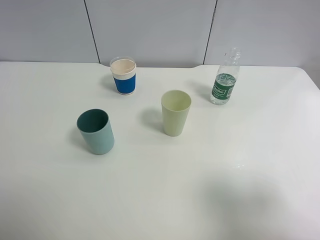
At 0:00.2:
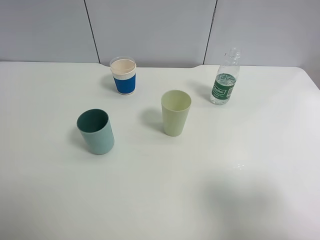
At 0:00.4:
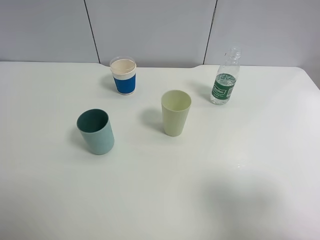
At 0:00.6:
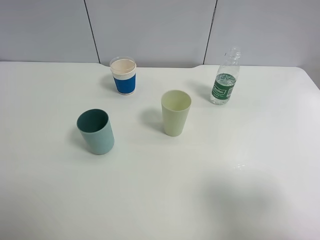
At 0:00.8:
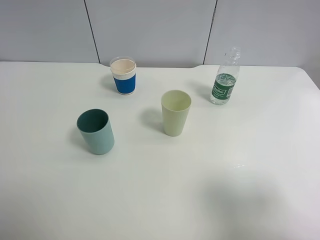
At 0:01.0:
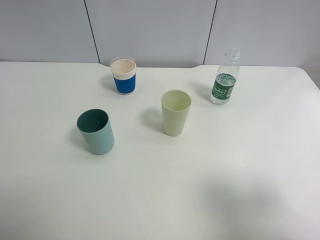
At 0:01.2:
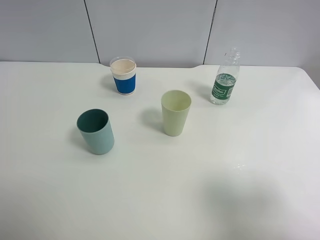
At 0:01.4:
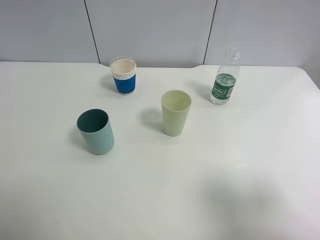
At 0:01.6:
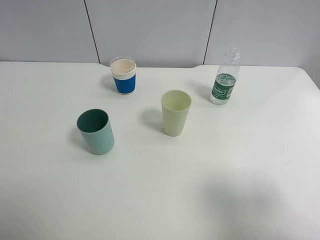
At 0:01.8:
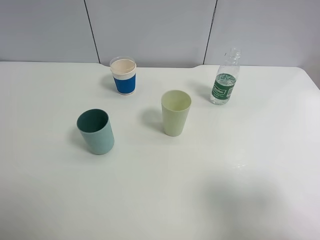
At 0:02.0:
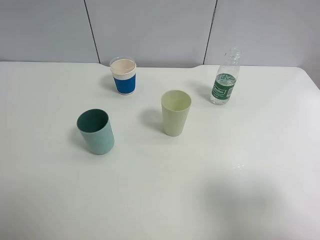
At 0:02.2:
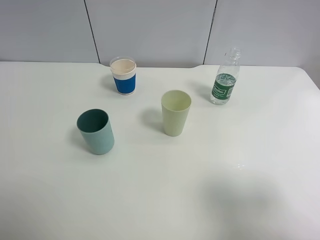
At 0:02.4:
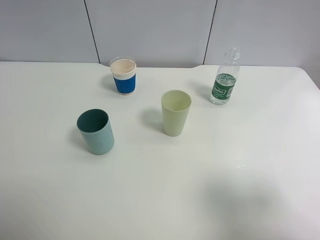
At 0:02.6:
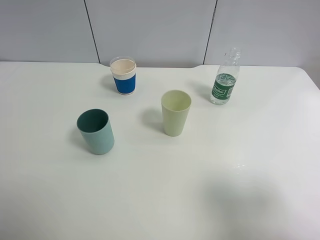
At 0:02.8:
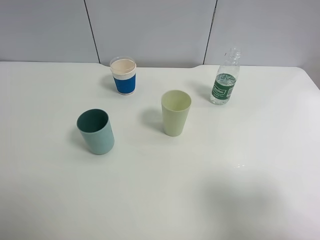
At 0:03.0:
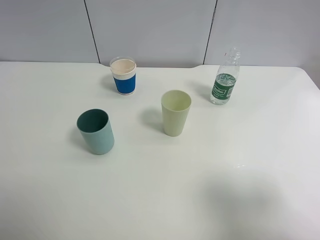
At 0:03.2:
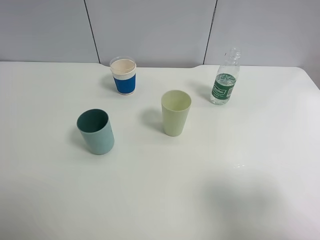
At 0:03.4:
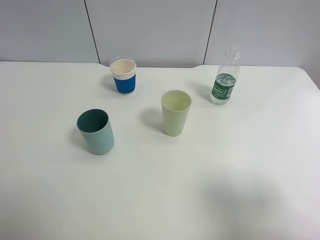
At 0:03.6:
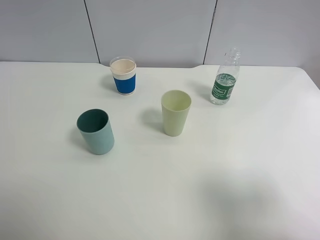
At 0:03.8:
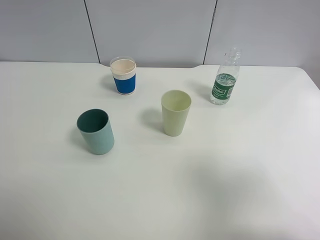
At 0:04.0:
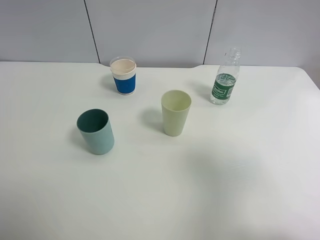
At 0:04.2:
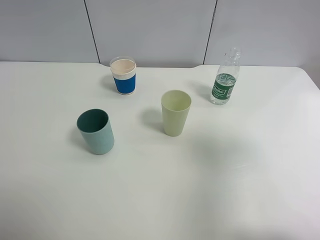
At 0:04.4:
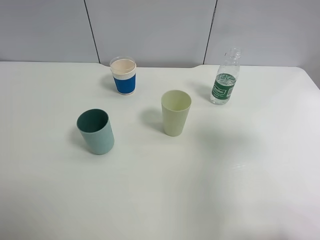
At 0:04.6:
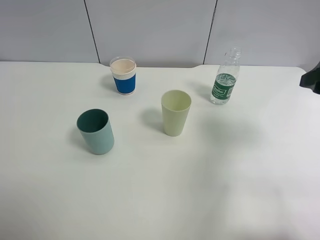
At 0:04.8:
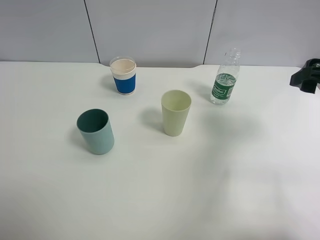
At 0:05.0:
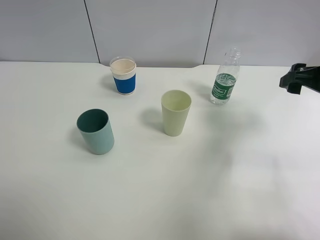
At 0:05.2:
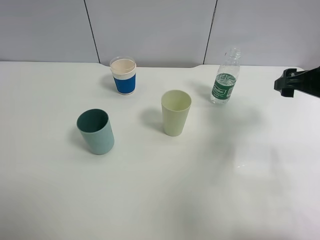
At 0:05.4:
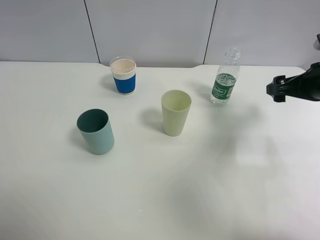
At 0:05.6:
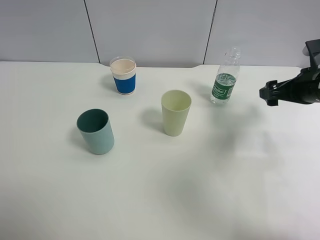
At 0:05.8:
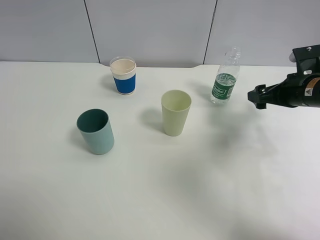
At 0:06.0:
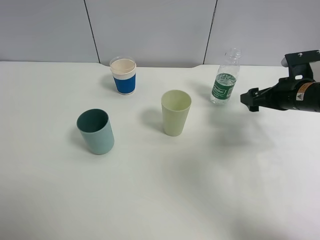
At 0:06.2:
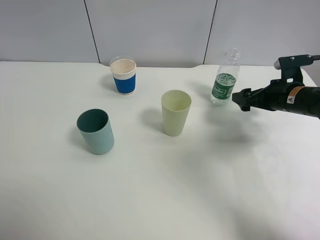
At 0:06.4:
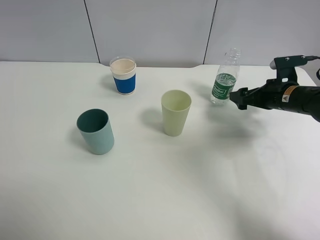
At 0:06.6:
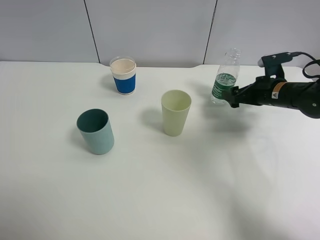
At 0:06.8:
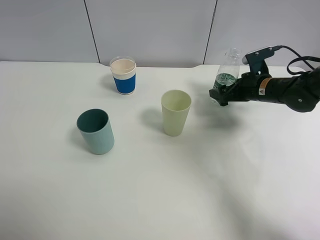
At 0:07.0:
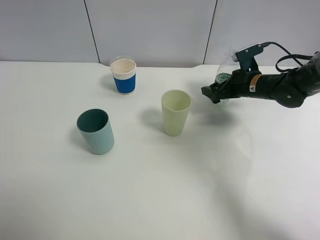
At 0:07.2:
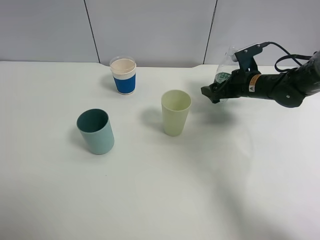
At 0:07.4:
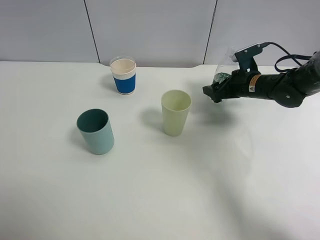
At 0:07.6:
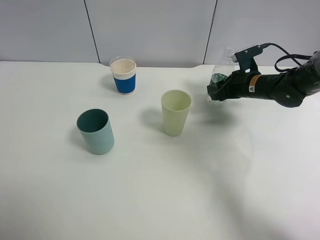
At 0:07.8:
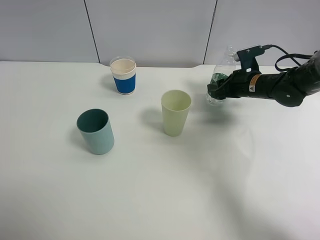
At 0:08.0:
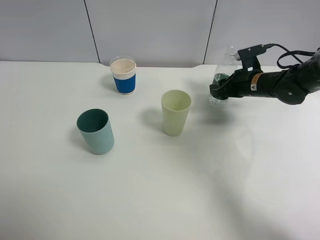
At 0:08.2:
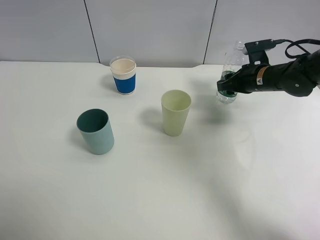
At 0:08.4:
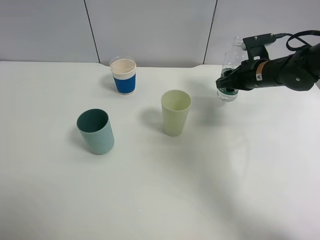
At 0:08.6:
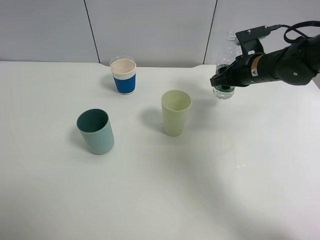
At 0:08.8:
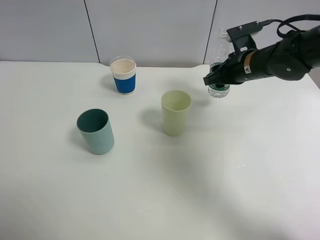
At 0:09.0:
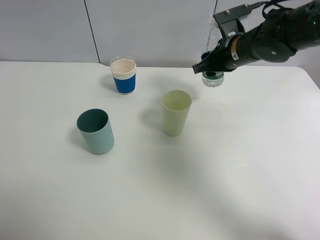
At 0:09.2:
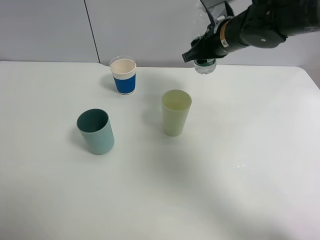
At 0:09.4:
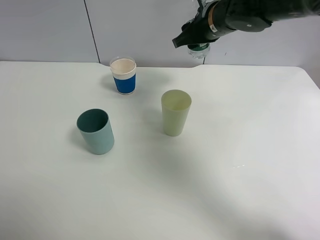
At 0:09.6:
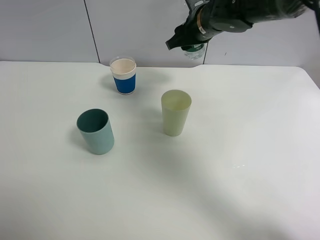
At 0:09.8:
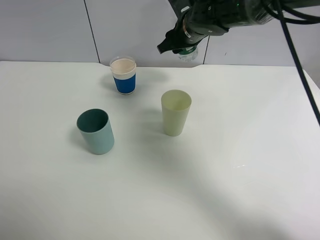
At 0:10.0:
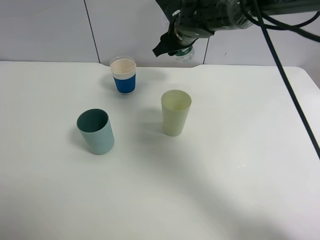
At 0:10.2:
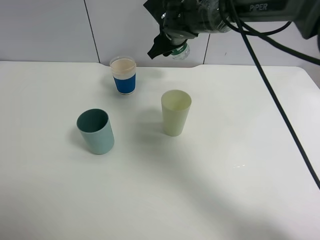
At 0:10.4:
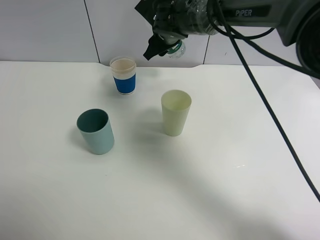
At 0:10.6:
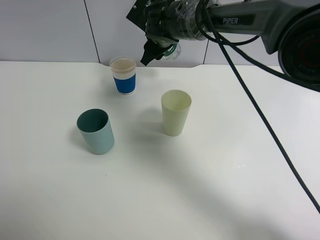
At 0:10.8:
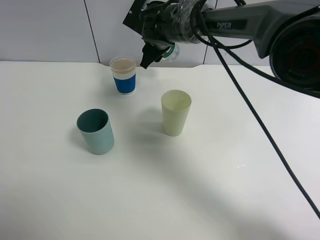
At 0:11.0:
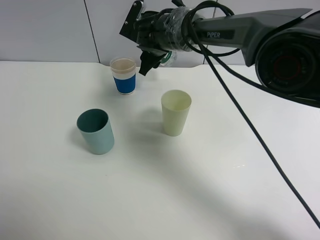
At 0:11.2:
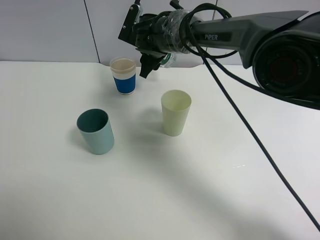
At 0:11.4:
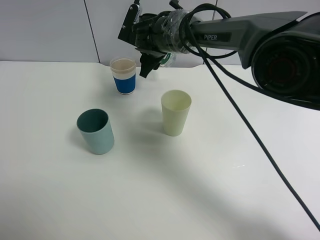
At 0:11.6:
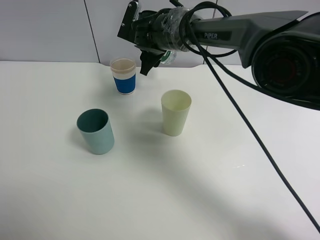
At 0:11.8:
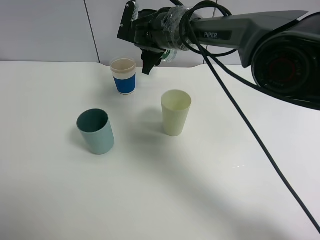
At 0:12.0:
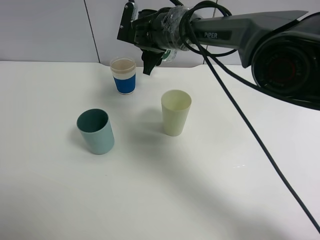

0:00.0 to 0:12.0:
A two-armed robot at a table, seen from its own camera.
Task of the whole recording: use a clamp to hold the bottle of the drink, pour the beverage into a random cup, then clamp the cup containing the drink and pour the drink into another random cup.
Step, 0:00.0 to 0:08.2: Pick up the water bottle with right gripper.
0:00.0 to 0:03.0: Both grippers stay about where they are.
0:03.0 to 0:04.4: The right gripper is displaced forward by some 15 cm.
0:04.4 to 0:06.0: The right gripper moves downward and forward, some 20 cm.
0:06.0 to 0:07.6: The right gripper is displaced forward and to the left by about 10 cm, and closes up.
0:07.6 to 0:09.0: The right gripper travels upward and to the left by approximately 15 cm.
0:09.0 to 0:10.4: The right gripper shifts roughly 15 cm to the left and forward.

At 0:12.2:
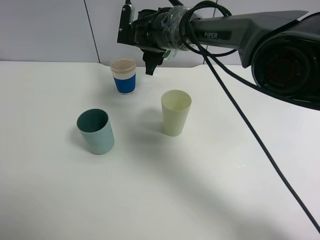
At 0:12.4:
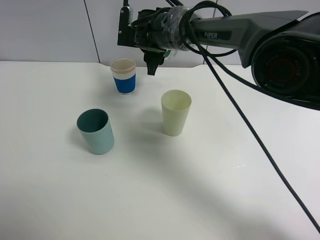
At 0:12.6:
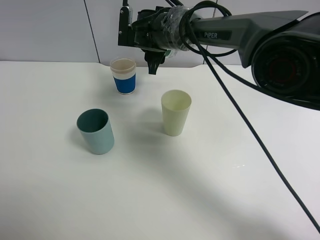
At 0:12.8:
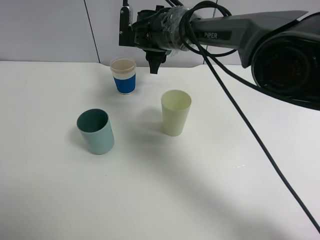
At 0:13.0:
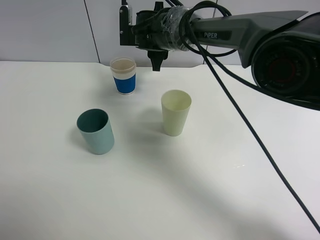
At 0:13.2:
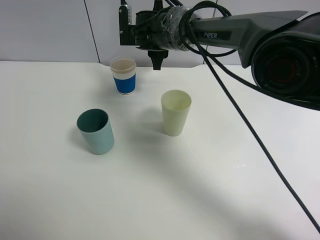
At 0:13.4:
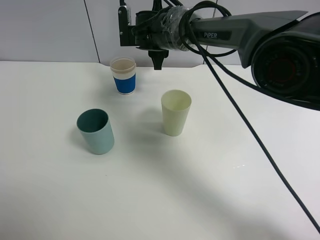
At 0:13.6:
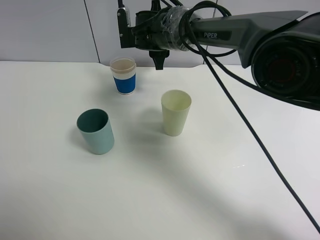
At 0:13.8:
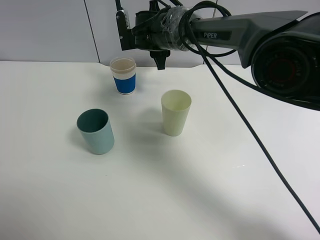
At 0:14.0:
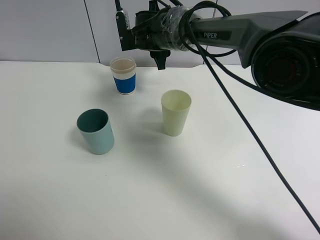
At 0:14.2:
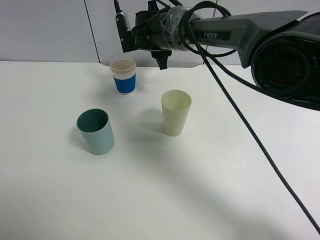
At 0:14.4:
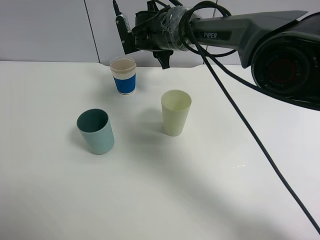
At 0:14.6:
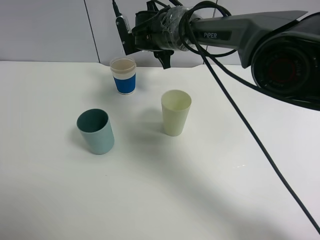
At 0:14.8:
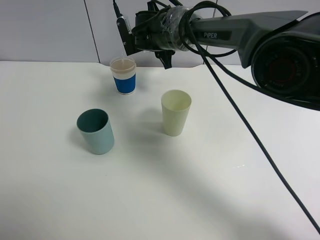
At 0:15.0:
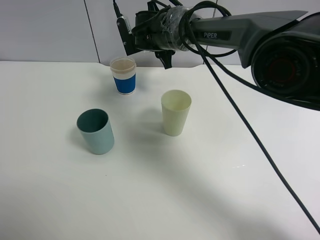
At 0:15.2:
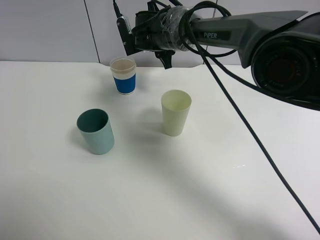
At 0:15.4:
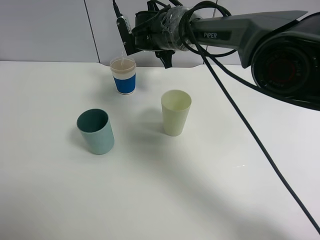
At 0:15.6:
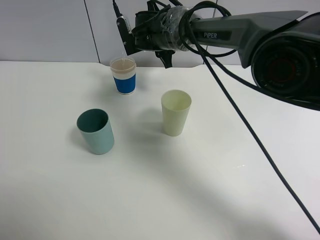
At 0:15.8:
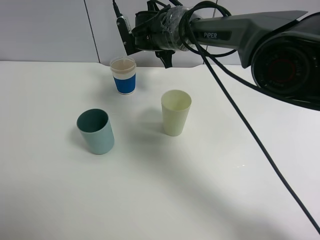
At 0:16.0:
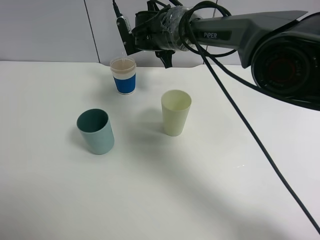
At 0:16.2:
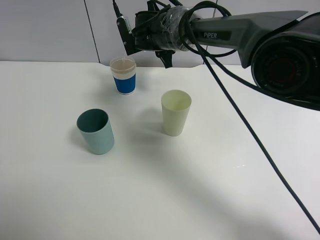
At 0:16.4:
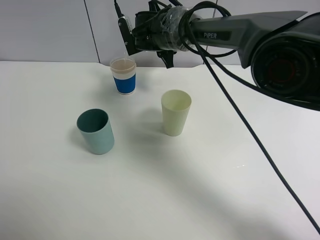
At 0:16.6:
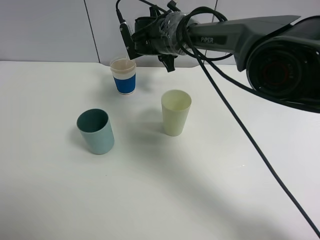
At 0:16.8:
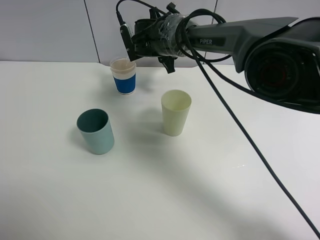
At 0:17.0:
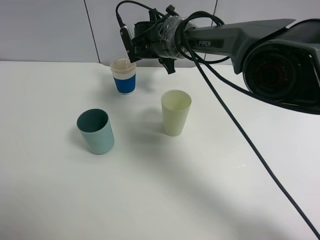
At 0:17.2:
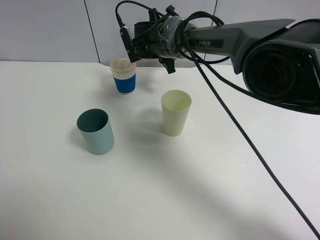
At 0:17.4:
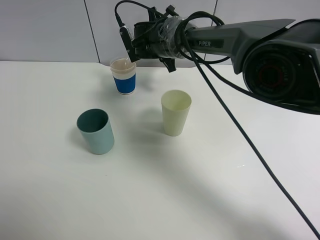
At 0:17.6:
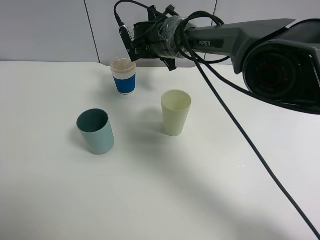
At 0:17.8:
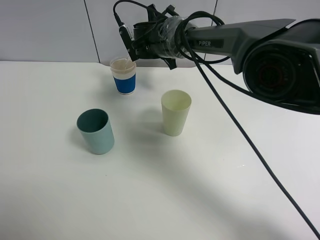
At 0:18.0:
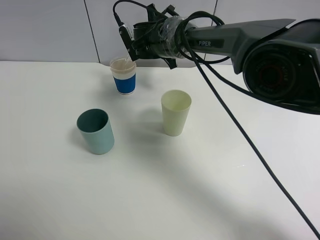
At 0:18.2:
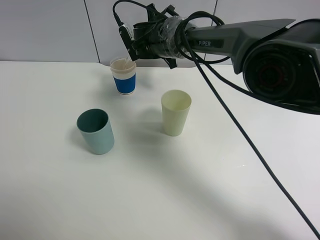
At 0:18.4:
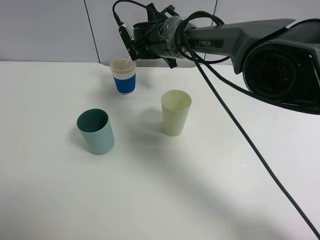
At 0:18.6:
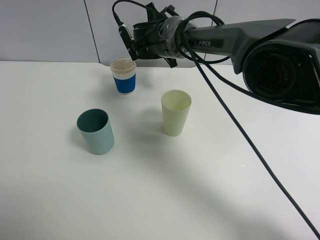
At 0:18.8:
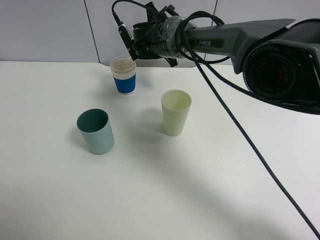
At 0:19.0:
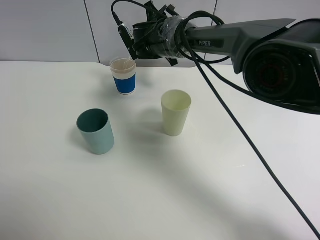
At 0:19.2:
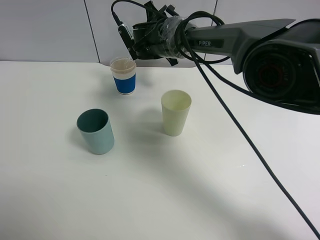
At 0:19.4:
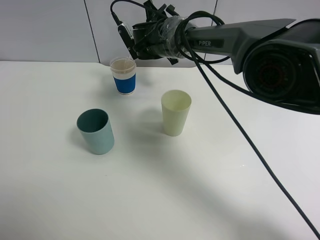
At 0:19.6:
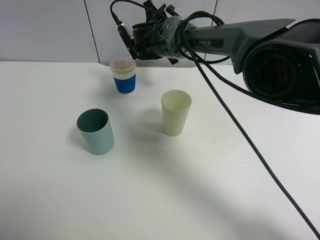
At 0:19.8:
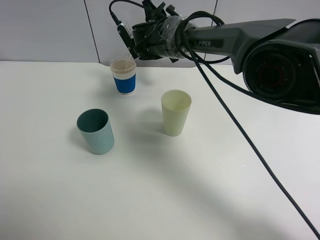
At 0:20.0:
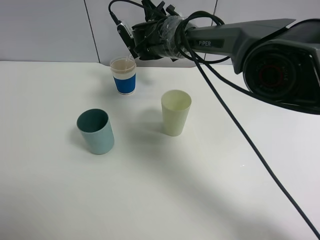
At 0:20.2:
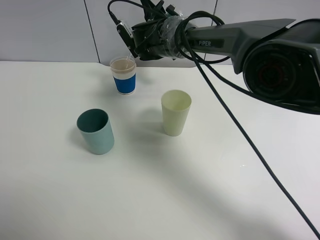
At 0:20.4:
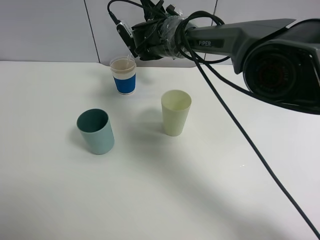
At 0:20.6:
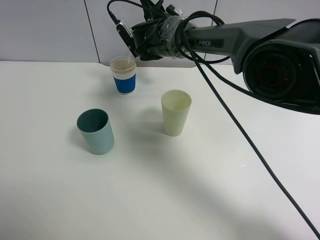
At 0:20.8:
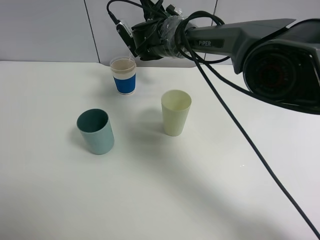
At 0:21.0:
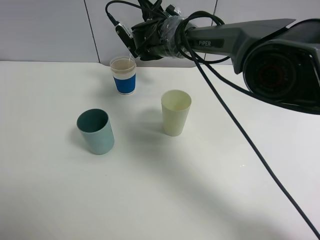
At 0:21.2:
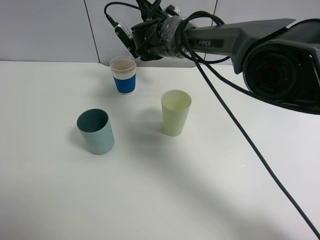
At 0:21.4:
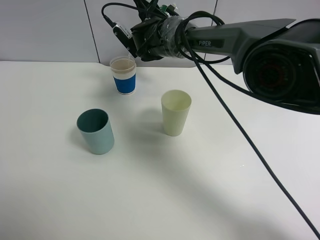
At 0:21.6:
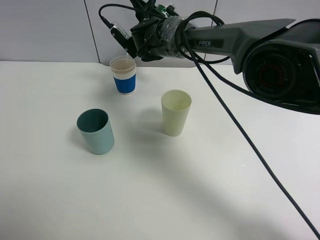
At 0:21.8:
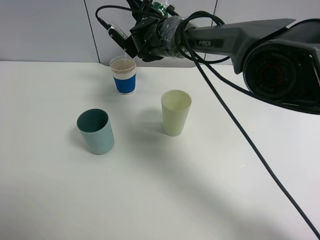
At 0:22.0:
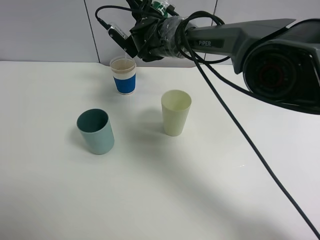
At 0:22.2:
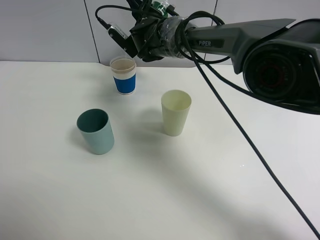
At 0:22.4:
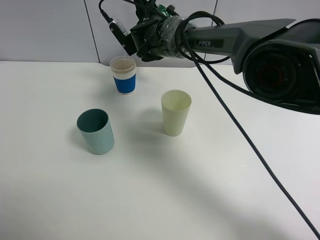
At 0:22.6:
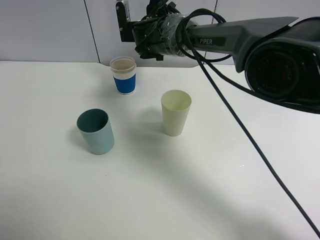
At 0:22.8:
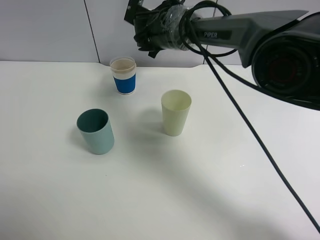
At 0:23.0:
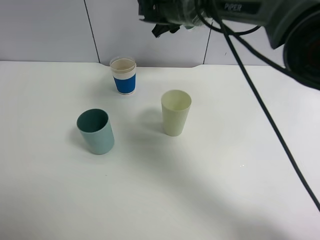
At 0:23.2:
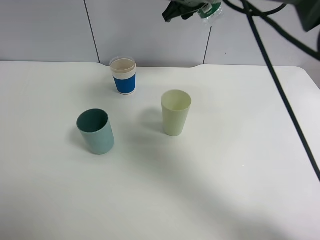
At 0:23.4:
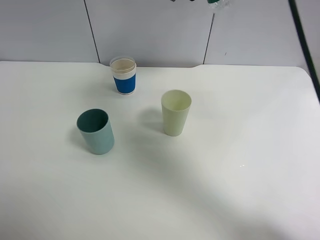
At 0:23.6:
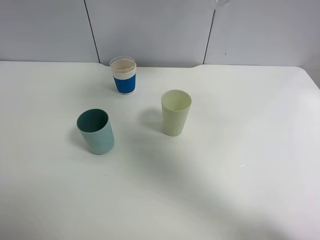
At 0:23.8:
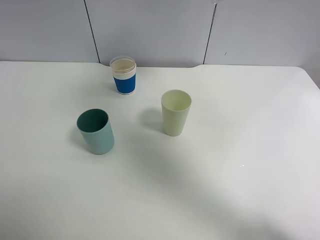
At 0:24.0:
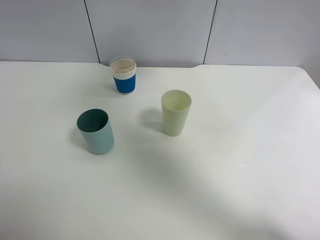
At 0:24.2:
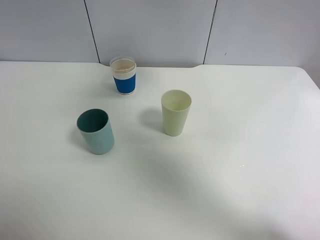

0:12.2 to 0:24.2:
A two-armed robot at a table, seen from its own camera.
Task of the whole recording: use a clamp to hold the bottle of the drink, pour the beverage into a random cup, then clamp the cup containing the drink and pour the drink into another random cup.
Step, 0:12.2 to 0:22.4: Pour water into the paper cup with right gripper.
0:12.2 to 0:13.8: The grippers move only a little.
0:13.8 to 0:15.2: The grippers stay close to where they were, moving slightly.
0:15.2 to 0:16.6: Neither gripper changes place.
0:16.6 to 0:19.8: The grippers make only small movements.
0:19.8 to 0:21.2: There are only small adjustments of the grippers.
0:22.6 to 0:24.2: The right gripper goes about 25 cm upward, backward and to the right.
